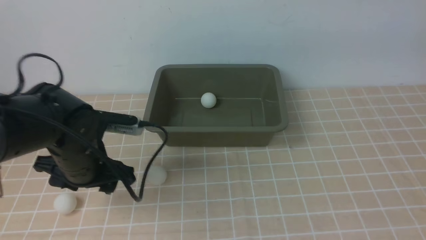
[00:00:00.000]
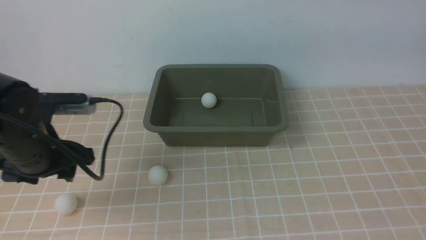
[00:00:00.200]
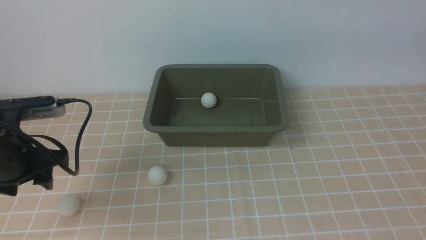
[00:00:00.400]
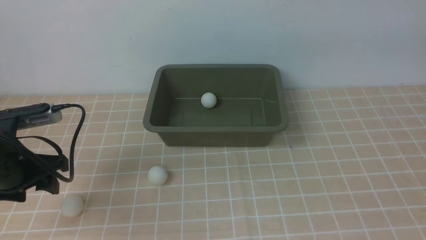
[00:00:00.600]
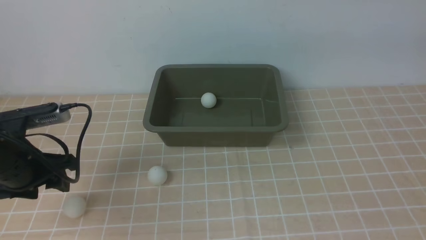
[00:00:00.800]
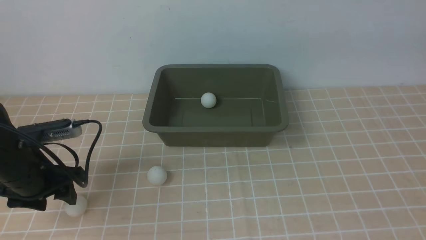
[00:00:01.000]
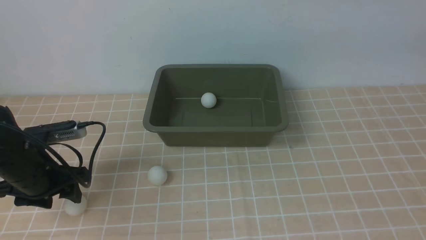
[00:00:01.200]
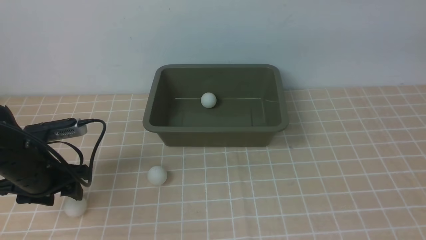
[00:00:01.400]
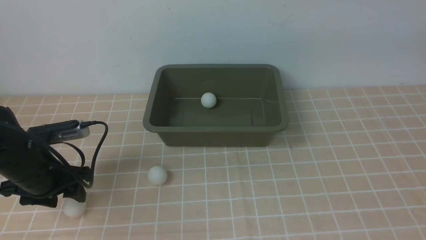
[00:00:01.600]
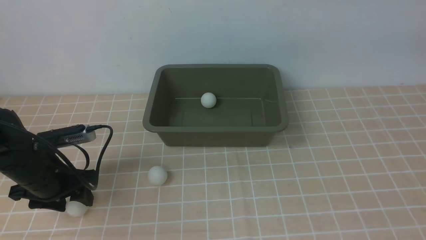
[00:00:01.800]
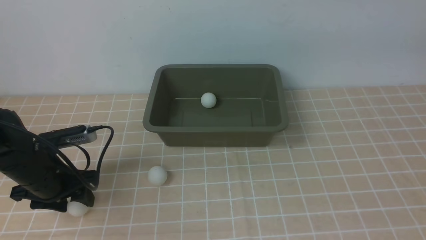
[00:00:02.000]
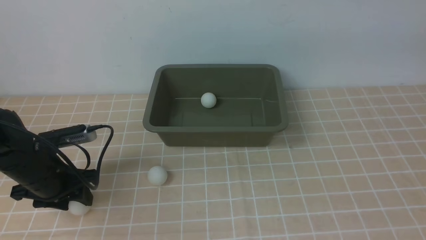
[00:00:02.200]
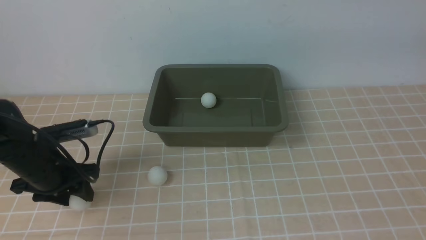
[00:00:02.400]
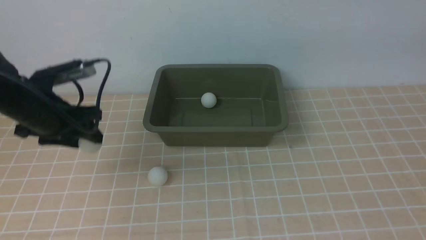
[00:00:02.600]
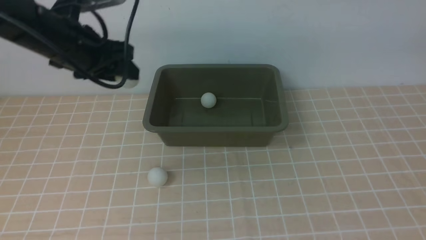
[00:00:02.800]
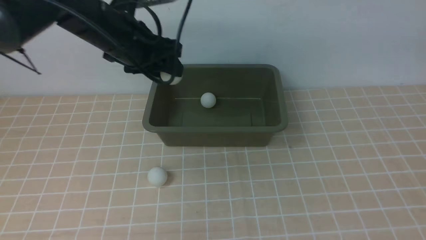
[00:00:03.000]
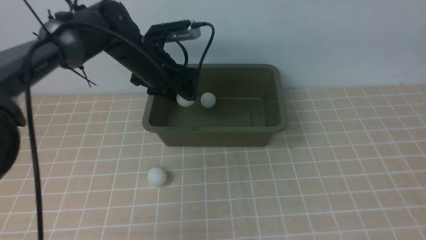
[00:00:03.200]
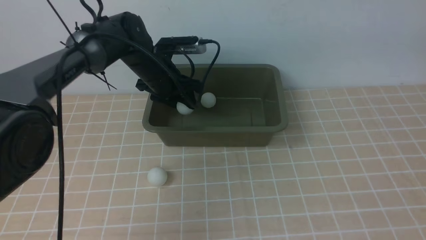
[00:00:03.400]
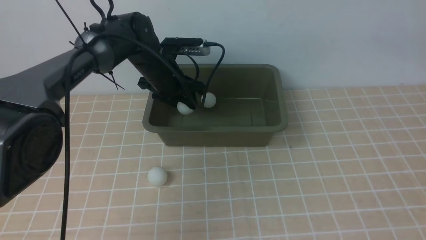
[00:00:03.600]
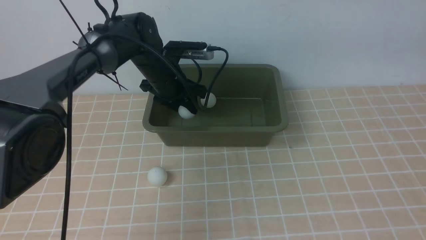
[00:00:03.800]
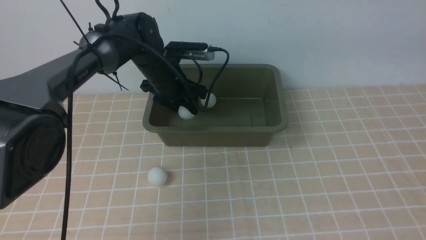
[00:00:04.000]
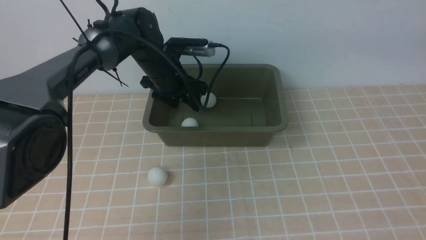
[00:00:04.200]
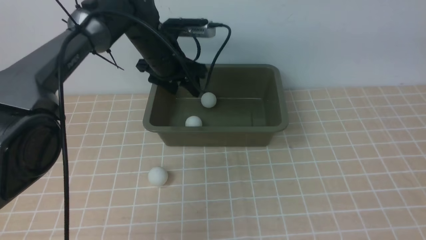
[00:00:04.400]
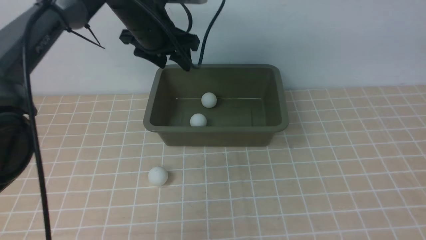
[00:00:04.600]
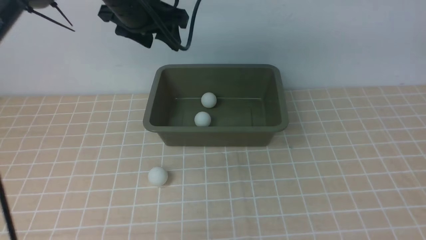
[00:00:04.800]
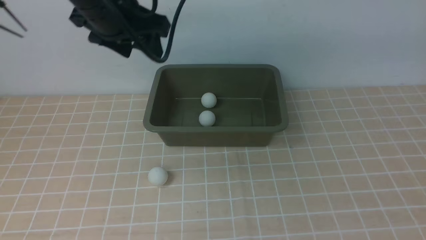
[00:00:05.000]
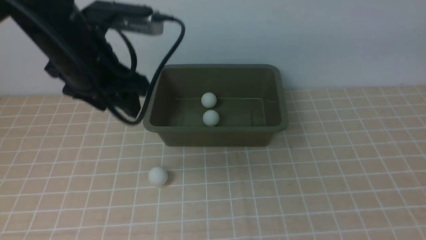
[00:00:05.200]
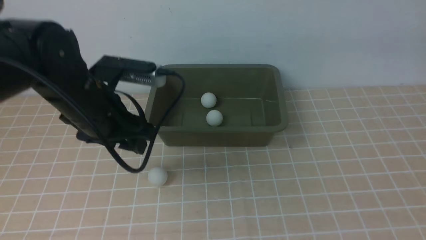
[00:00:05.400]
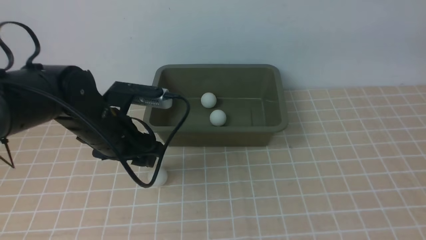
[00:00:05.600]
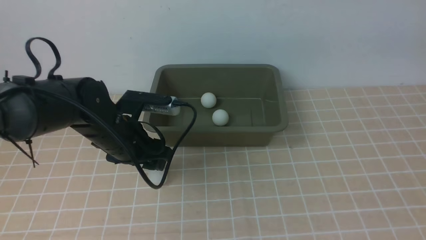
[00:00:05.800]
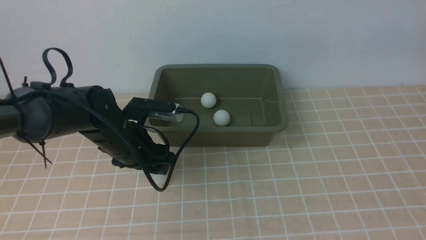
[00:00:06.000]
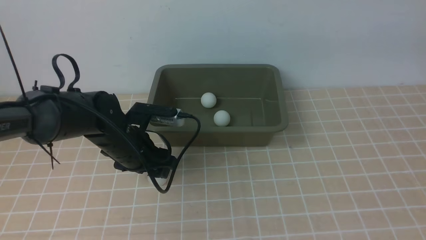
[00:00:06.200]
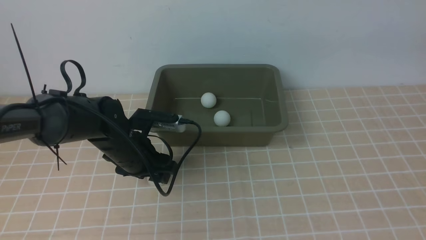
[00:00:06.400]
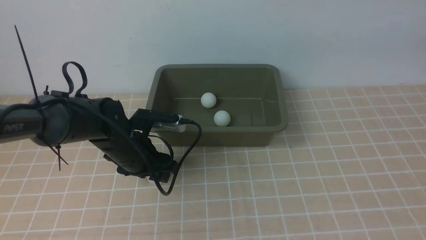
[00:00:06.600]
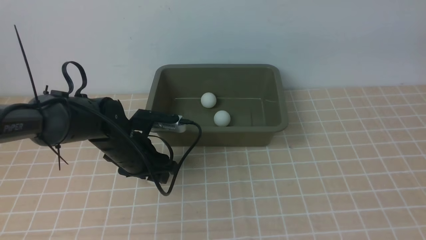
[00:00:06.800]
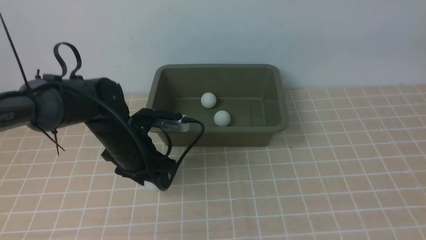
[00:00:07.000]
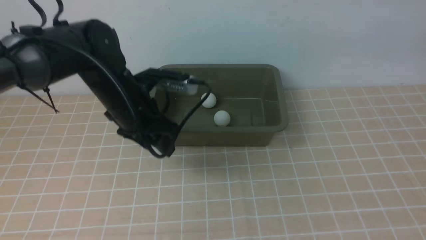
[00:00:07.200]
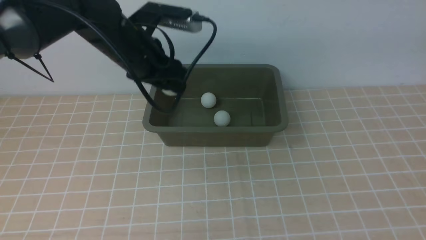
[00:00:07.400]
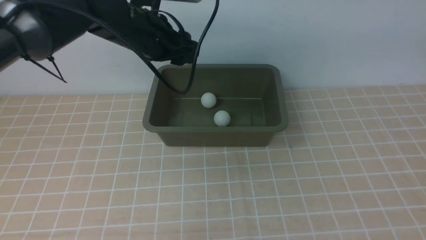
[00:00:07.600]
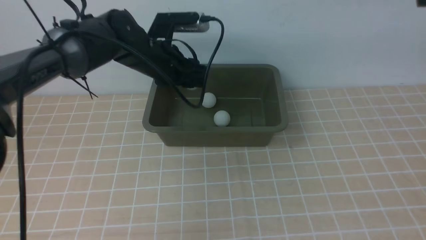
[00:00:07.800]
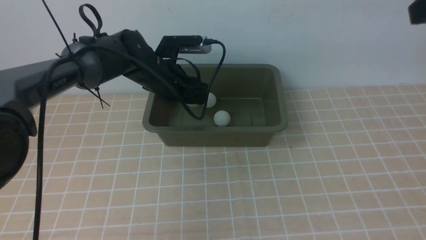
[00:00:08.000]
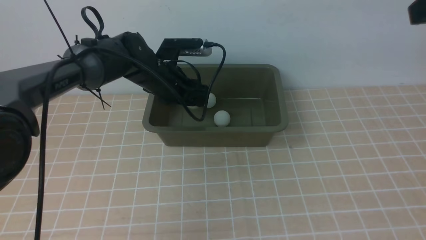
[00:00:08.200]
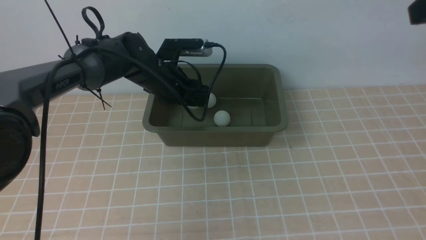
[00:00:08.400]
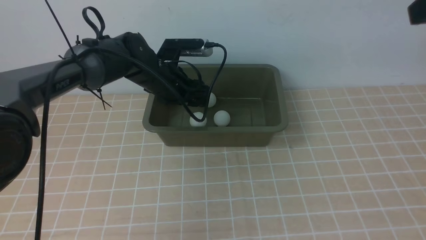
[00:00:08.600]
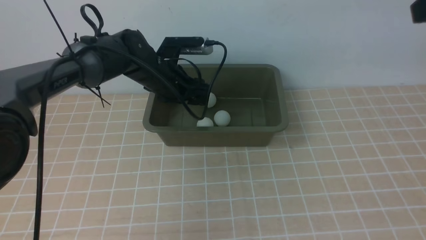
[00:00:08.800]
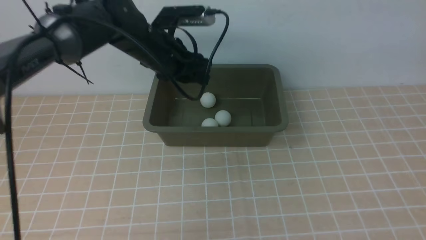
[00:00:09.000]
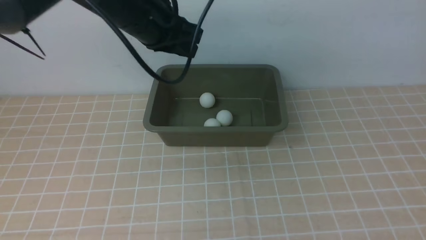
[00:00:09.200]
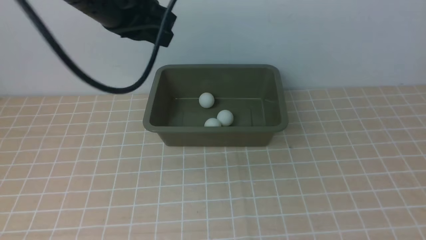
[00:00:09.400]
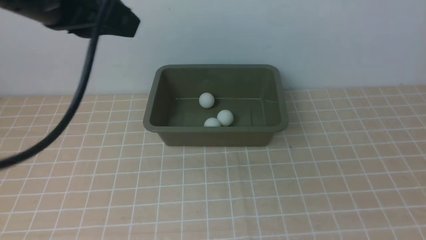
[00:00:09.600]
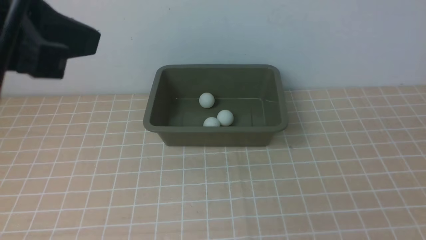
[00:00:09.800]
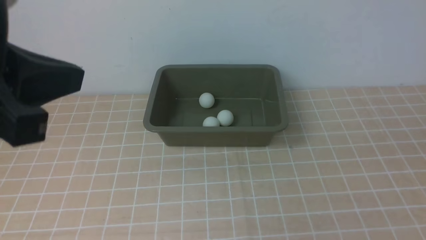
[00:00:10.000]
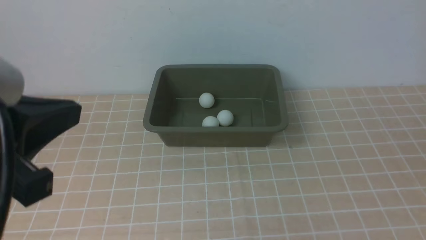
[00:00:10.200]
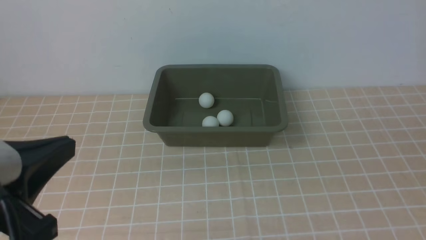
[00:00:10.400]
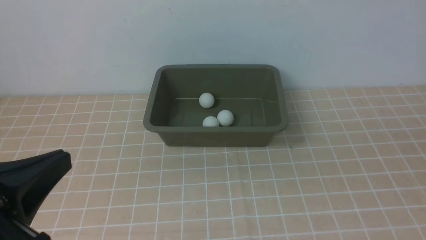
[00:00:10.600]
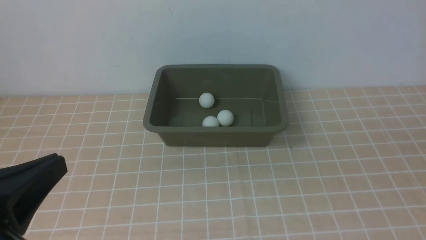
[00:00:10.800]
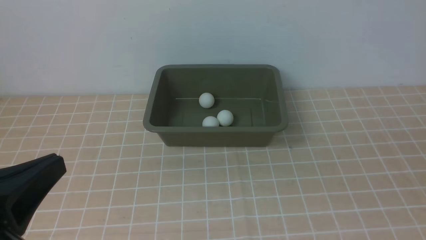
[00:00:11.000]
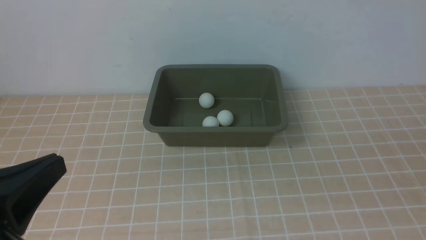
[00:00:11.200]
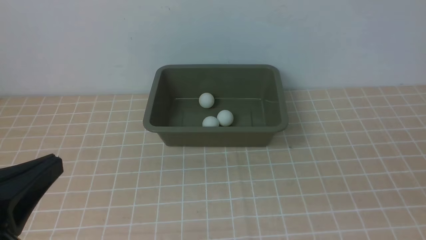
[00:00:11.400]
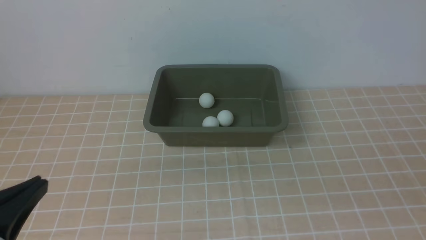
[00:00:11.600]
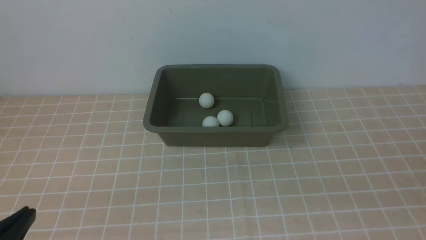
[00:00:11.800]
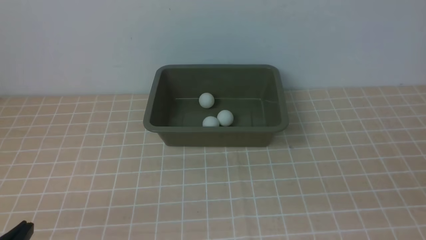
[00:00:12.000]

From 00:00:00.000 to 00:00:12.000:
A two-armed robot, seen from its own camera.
Step, from 00:00:00.000 to 00:00:02.600: use the left arm to clamp the table tennis ball closest to it.
Step, from 00:00:03.000 to 00:00:04.200: use the left arm to put the table tennis ball into the box.
Step, from 00:00:04.600 to 00:00:07.200: use the left arm to clamp the table tennis ball closest to it.
Step, from 00:00:07.400 to 00:00:09.200: use the left arm to put the table tennis ball into the box.
From 00:00:00.000 to 00:00:01.600: The left gripper shifts some 10 cm to the left.
From 00:00:01.600 to 00:00:03.000: The left gripper heads upward, forward and to the right, covering approximately 20 cm.
From 00:00:03.000 to 00:00:04.400: The left gripper is displaced forward, to the right and downward by about 10 cm.
From 00:00:04.400 to 00:00:06.000: The left gripper is displaced backward and downward by some 15 cm.
From 00:00:06.000 to 00:00:07.600: The left gripper moves upward and forward, roughly 15 cm.
From 00:00:09.000 to 00:00:10.400: The right gripper moves backward and downward, approximately 20 cm, and closes; the left gripper is displaced backward by some 35 cm, and closes.
From 00:00:10.400 to 00:00:12.000: The left gripper moves downward, some 15 cm.

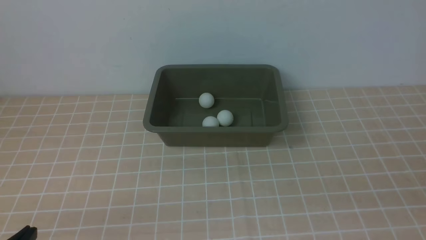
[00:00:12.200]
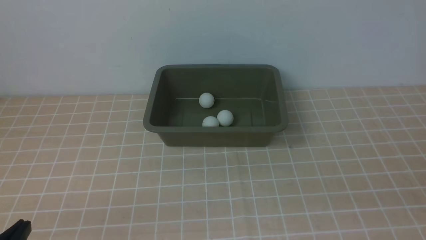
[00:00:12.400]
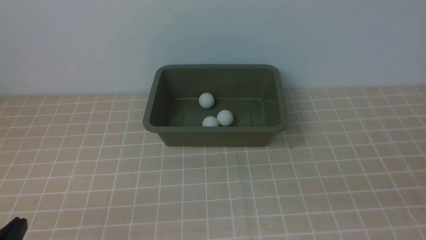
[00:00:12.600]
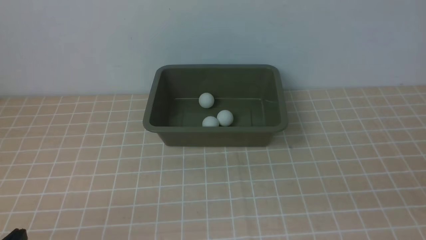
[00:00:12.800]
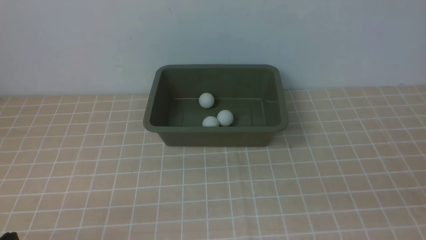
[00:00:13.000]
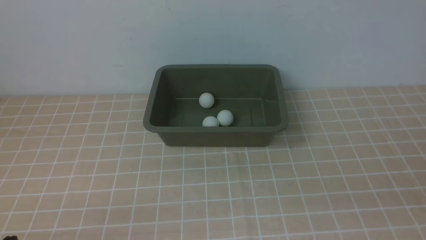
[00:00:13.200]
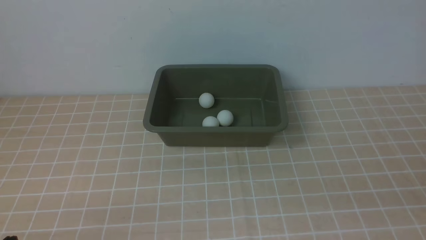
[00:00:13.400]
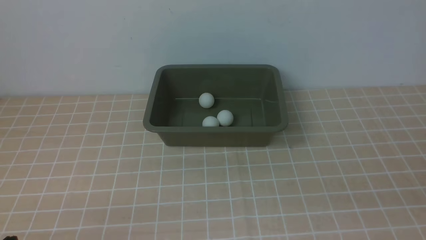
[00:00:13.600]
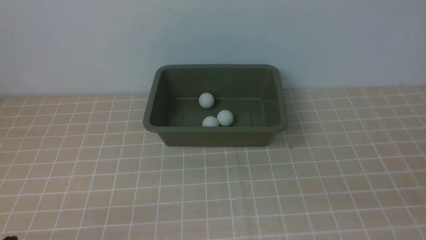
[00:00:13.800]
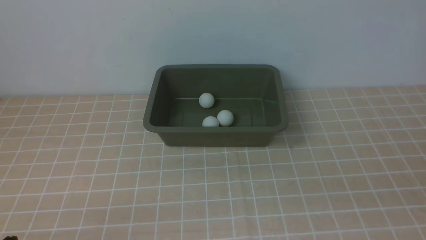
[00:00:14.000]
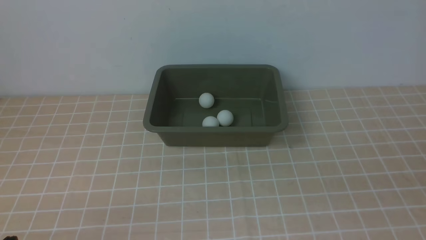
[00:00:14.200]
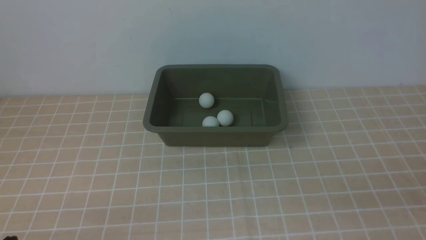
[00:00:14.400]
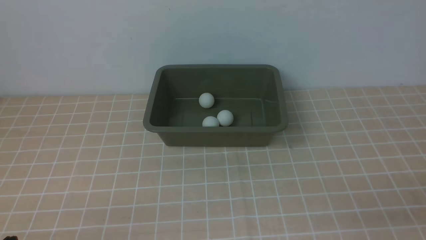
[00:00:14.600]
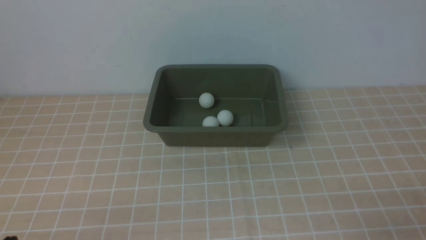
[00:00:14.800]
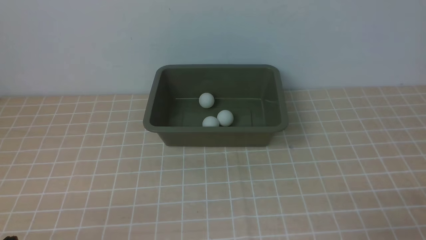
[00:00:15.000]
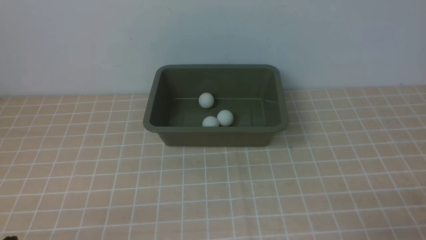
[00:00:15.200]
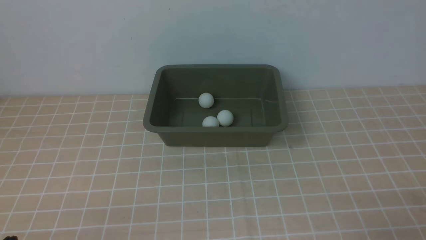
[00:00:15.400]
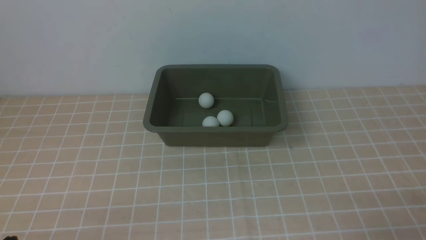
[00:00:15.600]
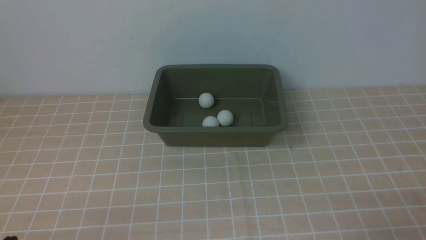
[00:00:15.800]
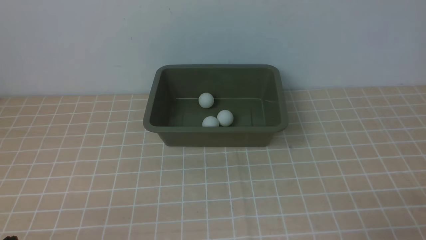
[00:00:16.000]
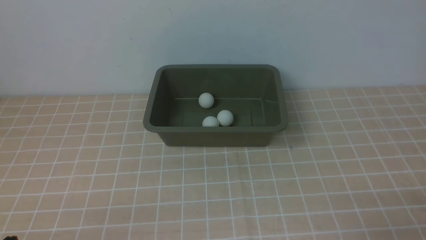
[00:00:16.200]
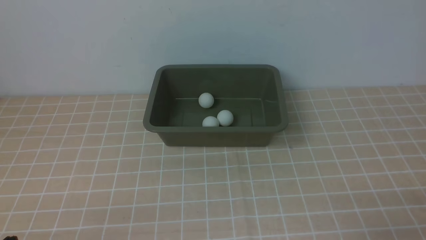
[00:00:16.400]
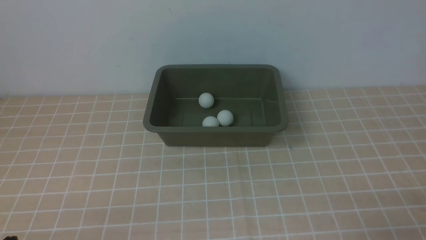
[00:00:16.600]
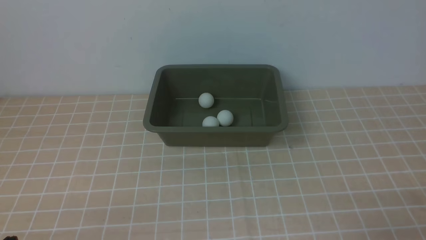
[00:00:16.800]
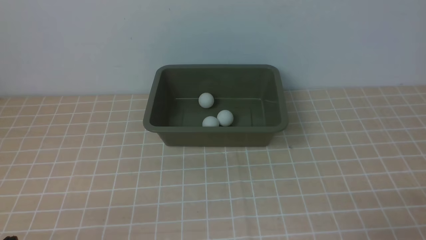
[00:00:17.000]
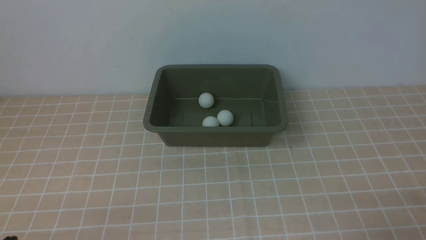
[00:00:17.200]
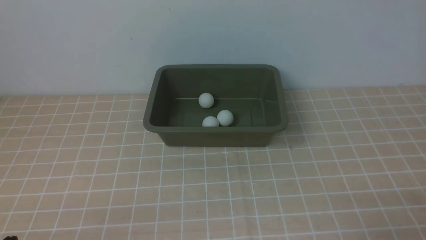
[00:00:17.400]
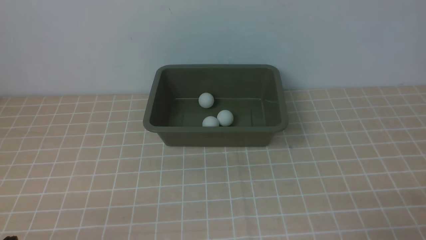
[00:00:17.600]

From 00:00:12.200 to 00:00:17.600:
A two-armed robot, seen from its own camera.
From 00:00:15.000 to 00:00:17.600: Both grippers stay about where they are.
